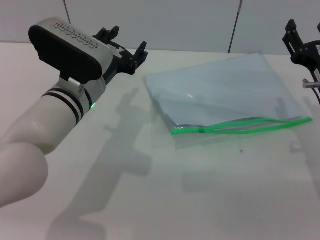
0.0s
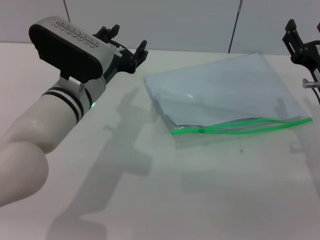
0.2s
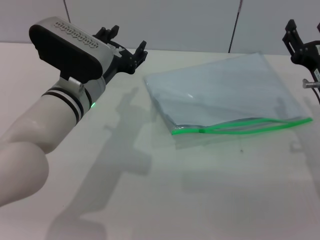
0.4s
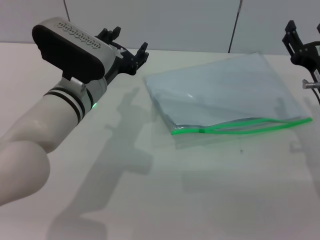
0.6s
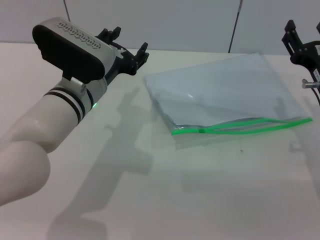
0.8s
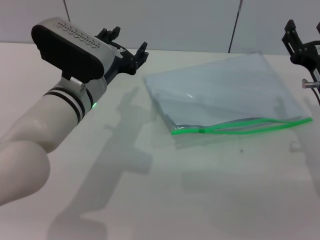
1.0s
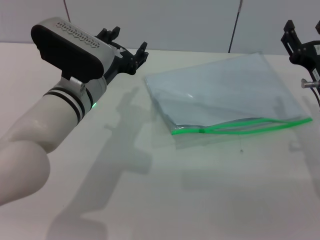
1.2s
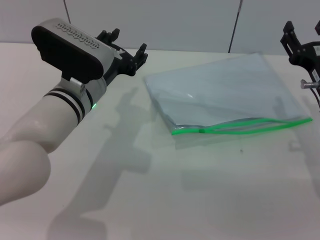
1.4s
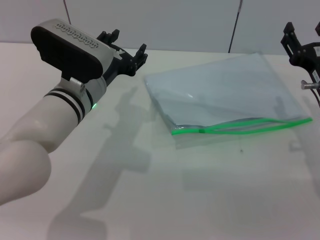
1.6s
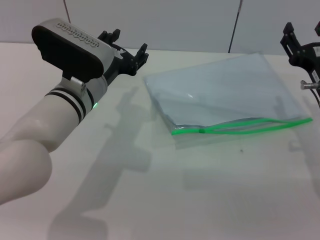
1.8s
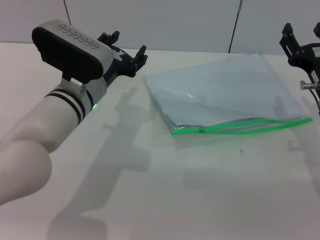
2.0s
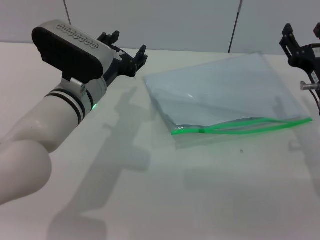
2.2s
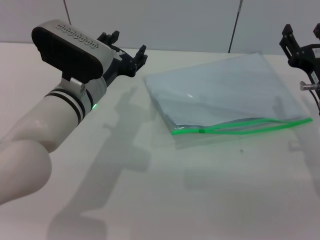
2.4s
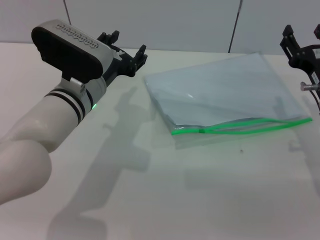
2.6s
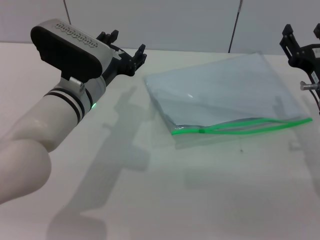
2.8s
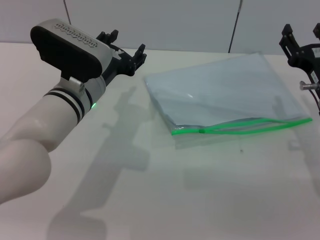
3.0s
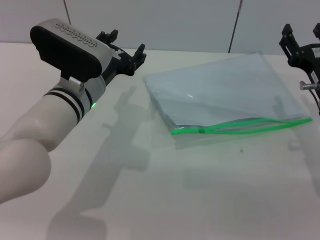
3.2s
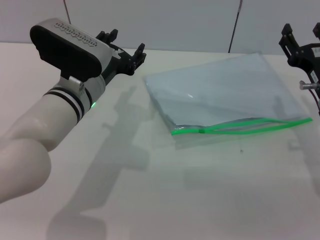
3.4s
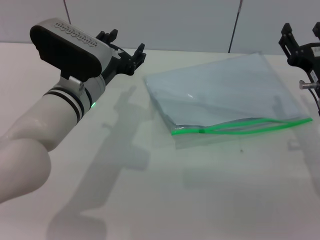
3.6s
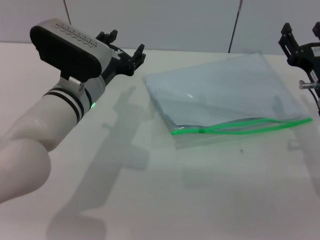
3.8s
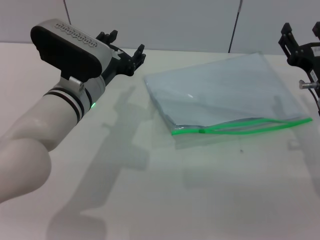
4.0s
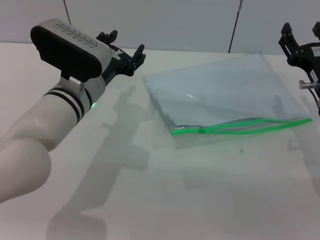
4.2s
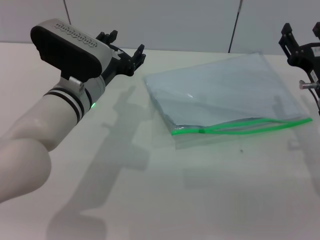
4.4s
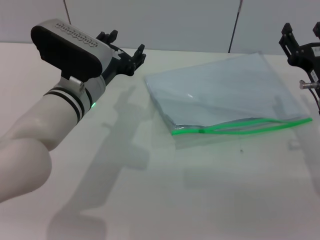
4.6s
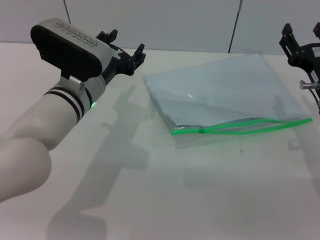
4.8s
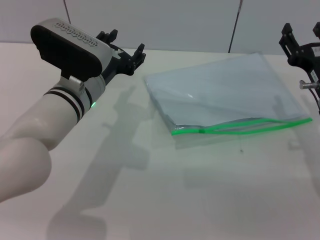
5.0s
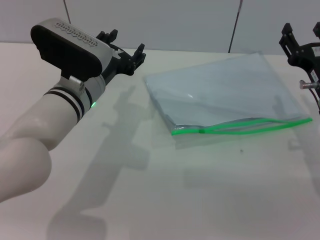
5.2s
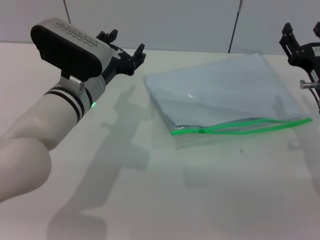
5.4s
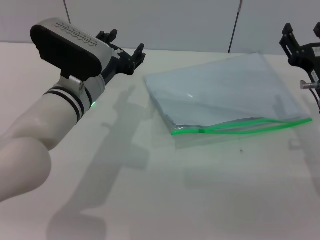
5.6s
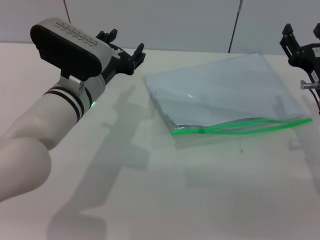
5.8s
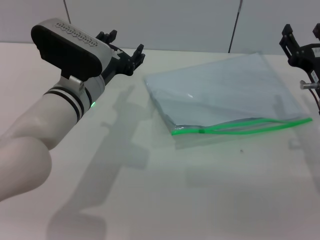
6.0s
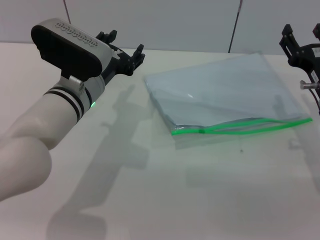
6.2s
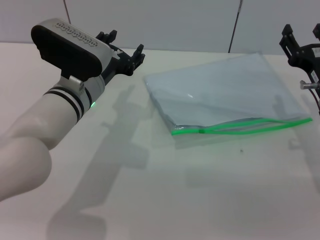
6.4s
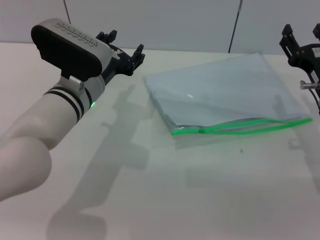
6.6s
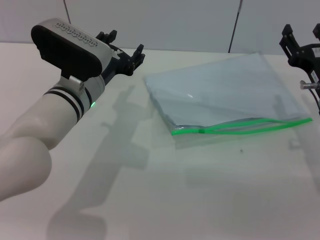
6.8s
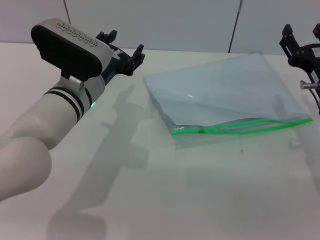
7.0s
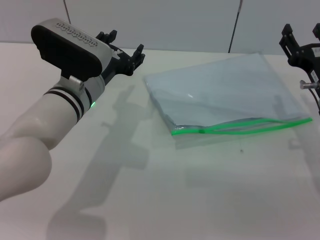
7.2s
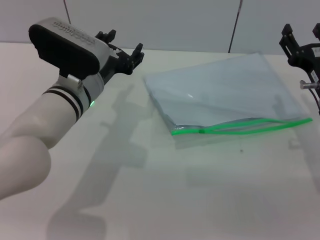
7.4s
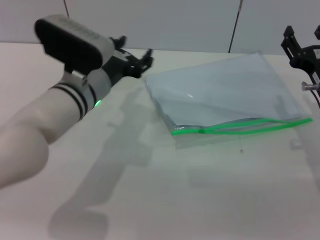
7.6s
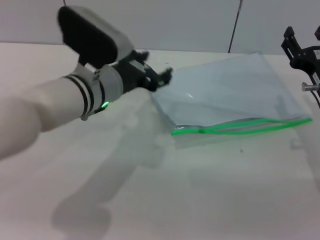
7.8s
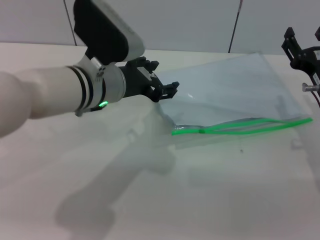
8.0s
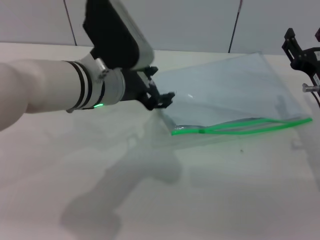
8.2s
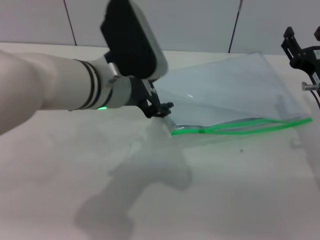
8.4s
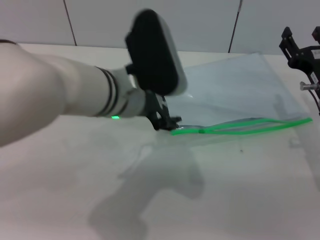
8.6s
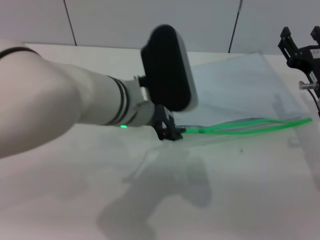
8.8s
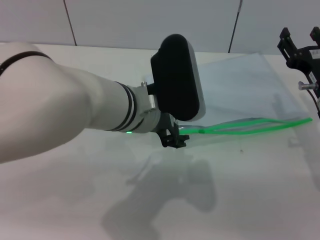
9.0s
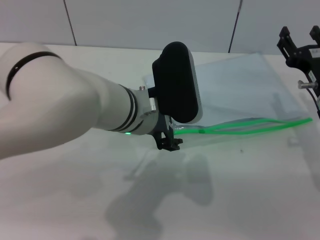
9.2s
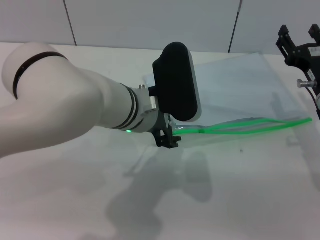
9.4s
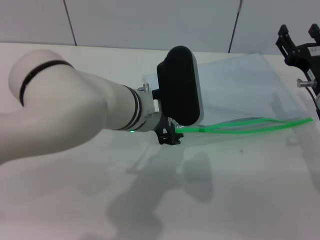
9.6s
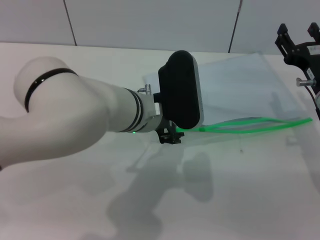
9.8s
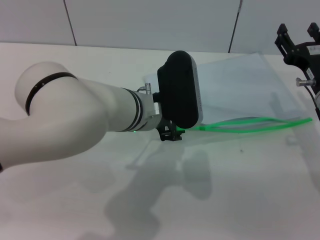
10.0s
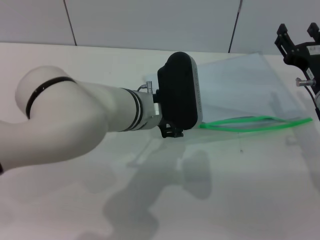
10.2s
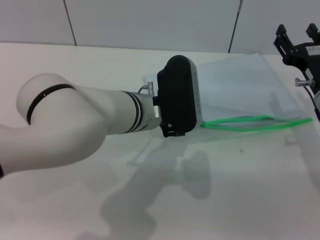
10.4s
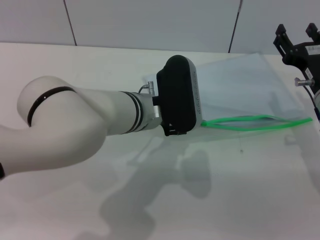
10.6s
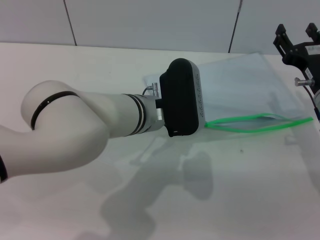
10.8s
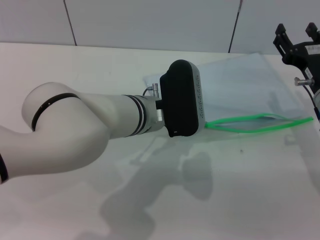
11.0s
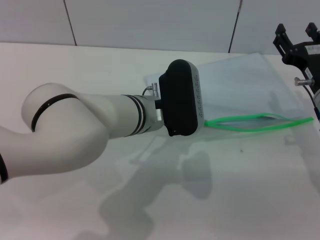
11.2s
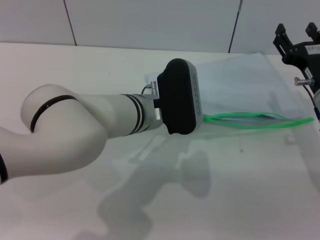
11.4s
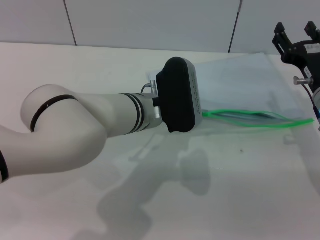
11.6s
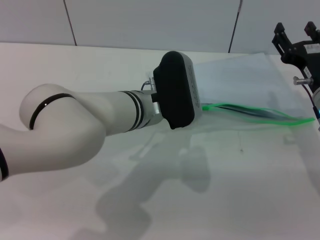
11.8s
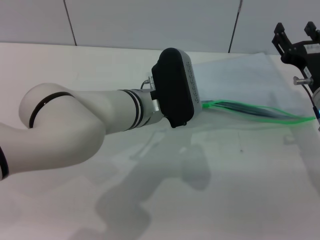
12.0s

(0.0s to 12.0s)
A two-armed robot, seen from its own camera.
0.0s - 6.0s: Neither gripper changes place.
6.0s - 7.6s: The grippers make only small movements.
7.6s - 9.0s: The left gripper goes about 5 cm to the right.
9.0s - 10.4s: The left gripper changes place by about 5 cm.
10.4s - 12.0s: The left gripper closes.

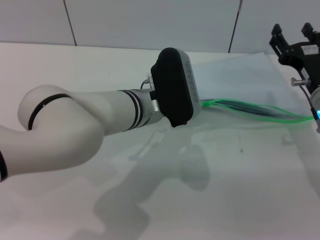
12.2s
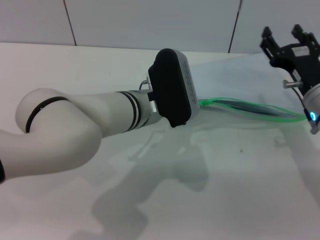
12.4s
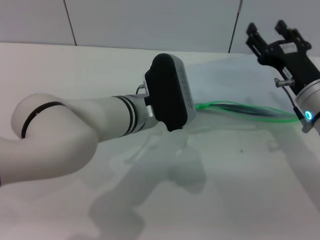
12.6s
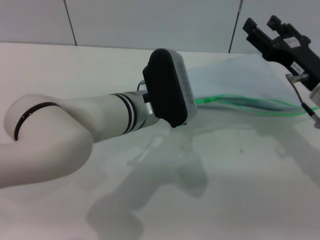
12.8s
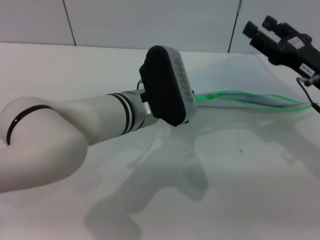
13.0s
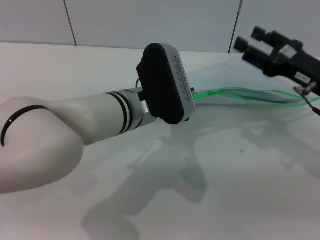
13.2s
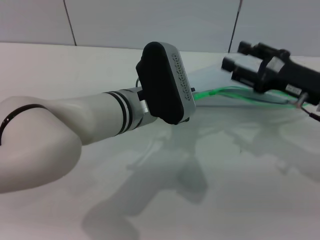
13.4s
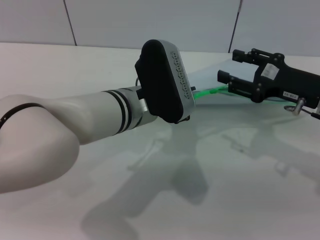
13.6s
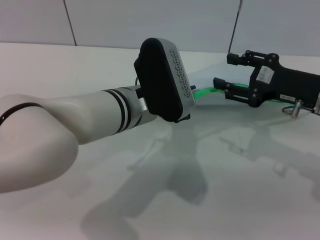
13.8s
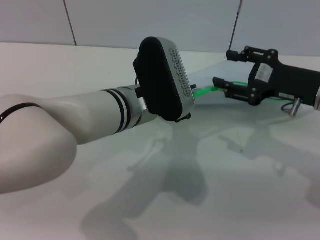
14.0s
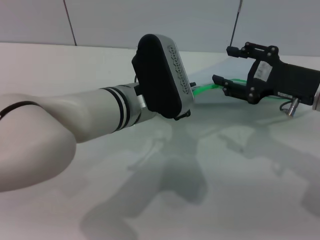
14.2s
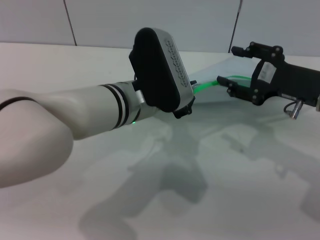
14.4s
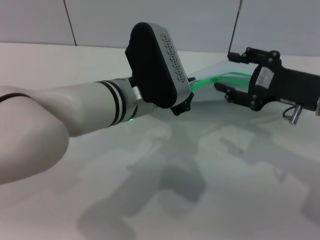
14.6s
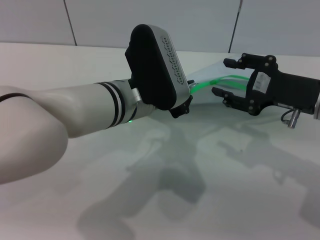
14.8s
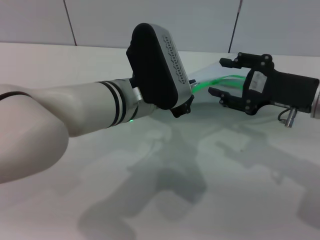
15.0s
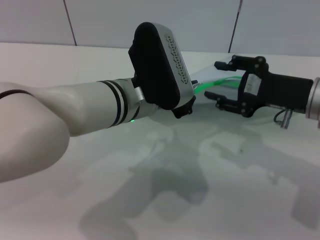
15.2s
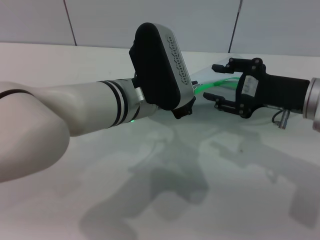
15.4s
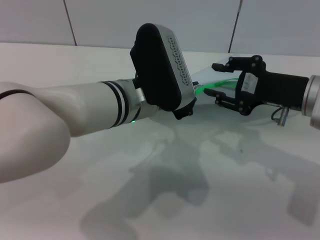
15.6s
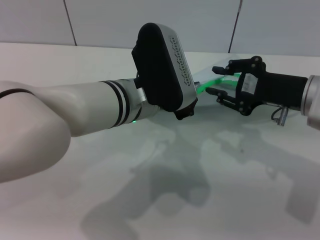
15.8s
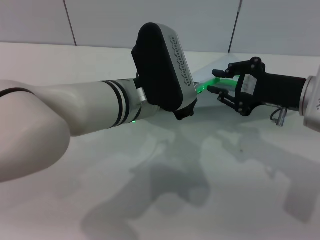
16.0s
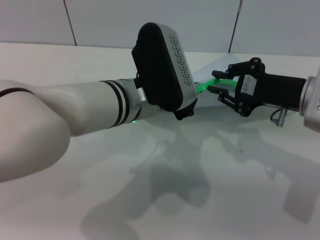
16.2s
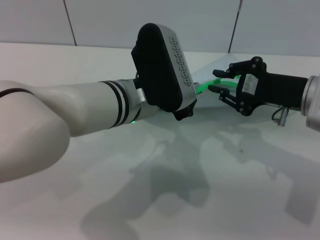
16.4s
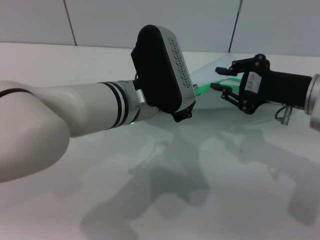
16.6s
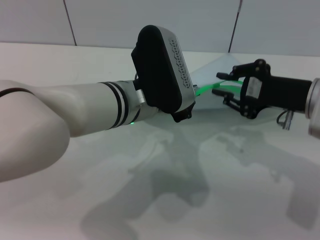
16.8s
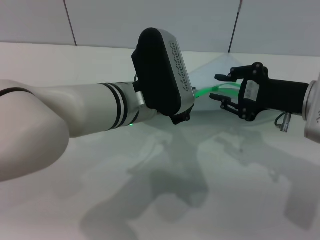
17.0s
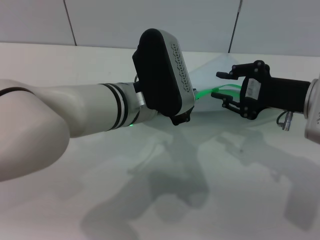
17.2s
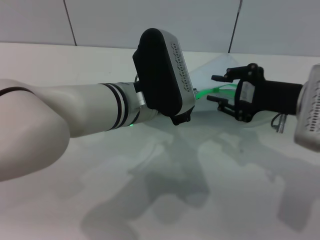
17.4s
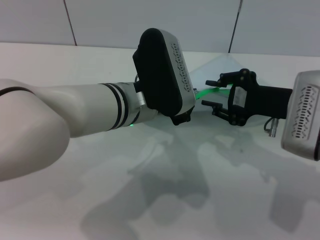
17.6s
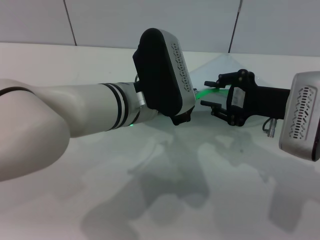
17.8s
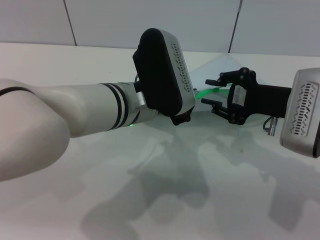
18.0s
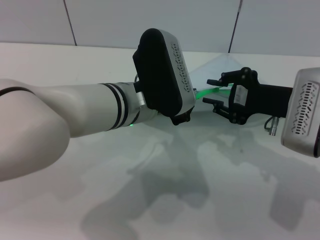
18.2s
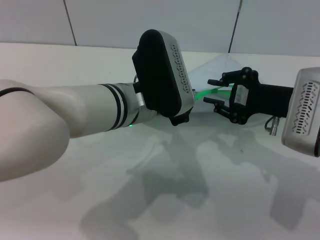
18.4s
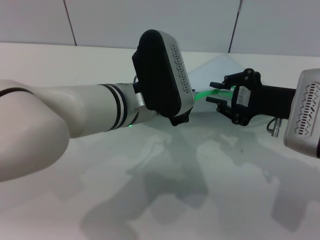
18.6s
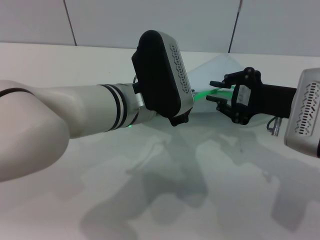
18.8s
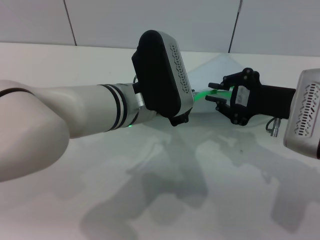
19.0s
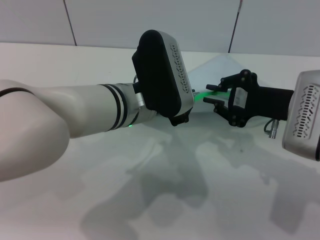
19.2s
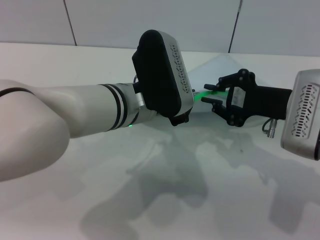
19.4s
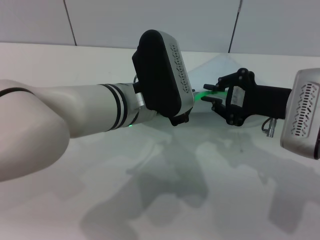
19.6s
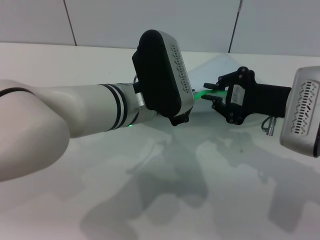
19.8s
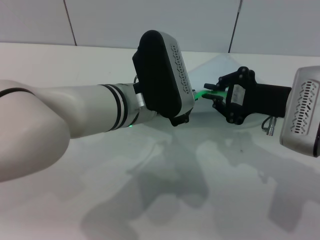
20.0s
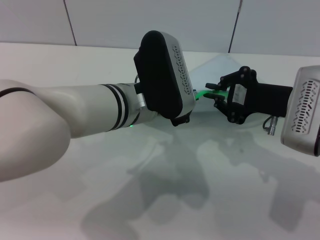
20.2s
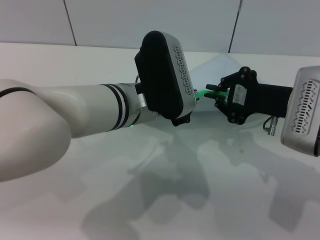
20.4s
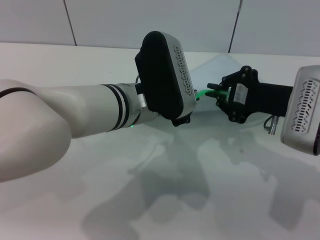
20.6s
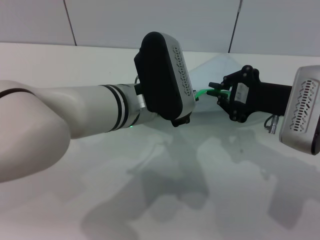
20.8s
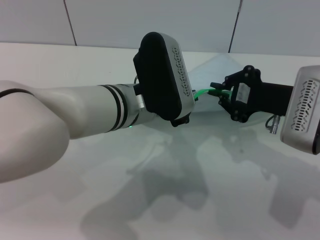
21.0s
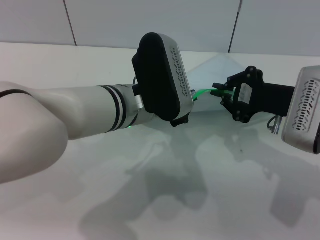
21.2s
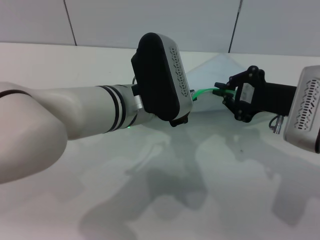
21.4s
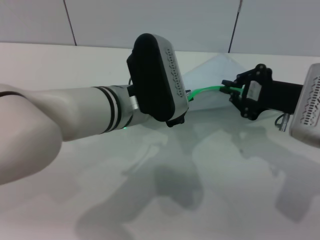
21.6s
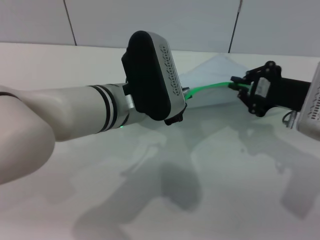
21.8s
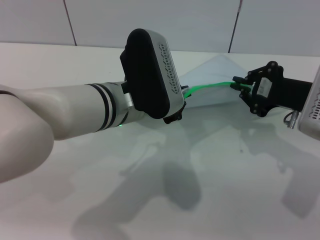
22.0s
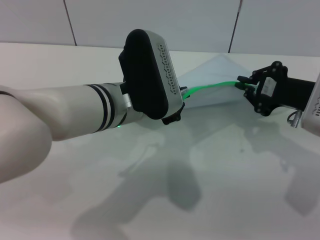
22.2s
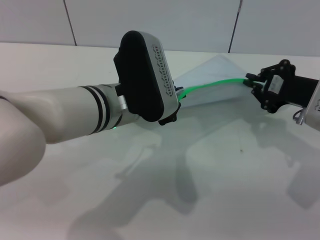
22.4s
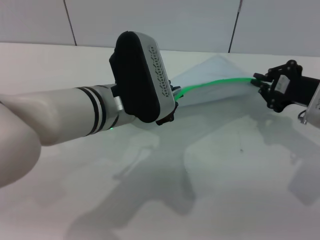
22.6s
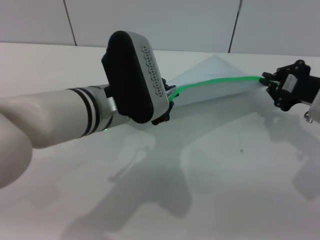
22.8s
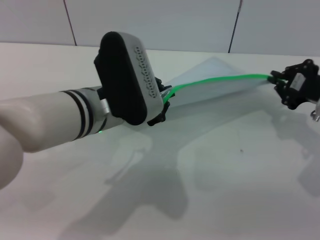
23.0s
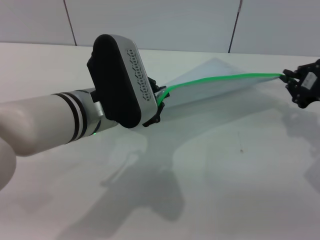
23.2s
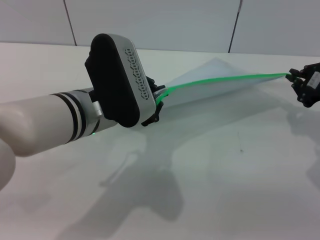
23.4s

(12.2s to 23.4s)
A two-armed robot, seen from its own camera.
15.4s - 17.0s: The right gripper closes up.
17.0s - 18.6s: The grippers make only small movements.
18.6s - 20.2s: Both grippers stay put.
20.2s - 21.8s: The grippers stay close to where they were, moving slightly.
21.8s - 23.4s: The right gripper travels to the right by about 5 cm.
